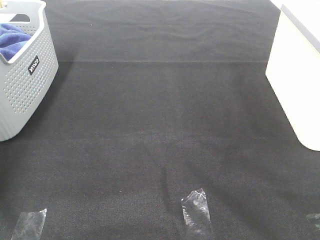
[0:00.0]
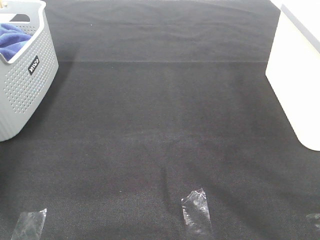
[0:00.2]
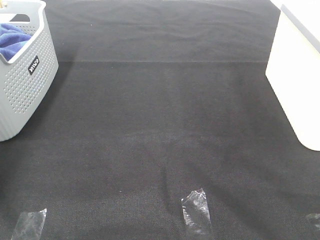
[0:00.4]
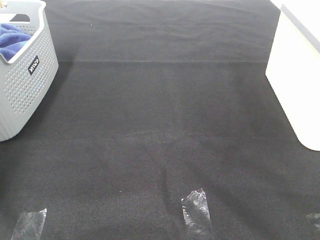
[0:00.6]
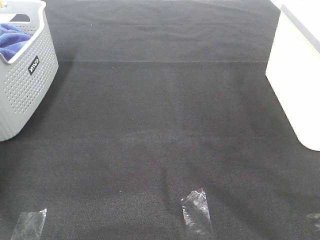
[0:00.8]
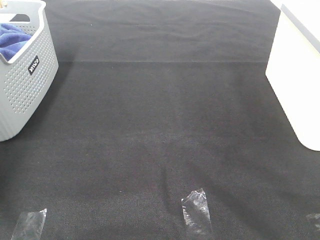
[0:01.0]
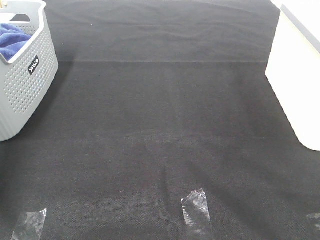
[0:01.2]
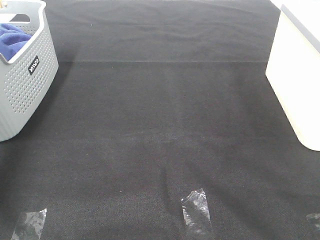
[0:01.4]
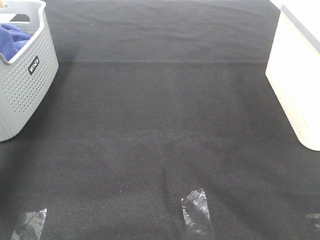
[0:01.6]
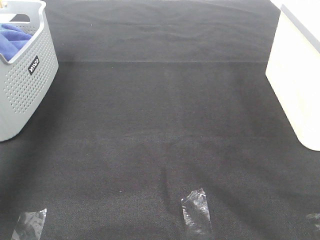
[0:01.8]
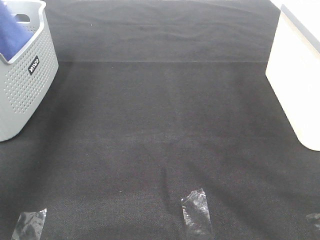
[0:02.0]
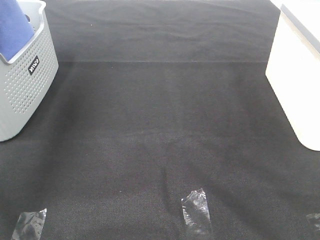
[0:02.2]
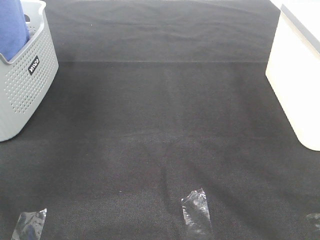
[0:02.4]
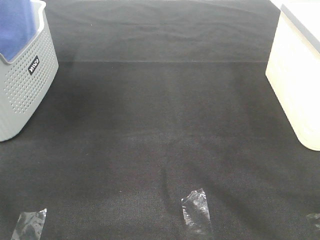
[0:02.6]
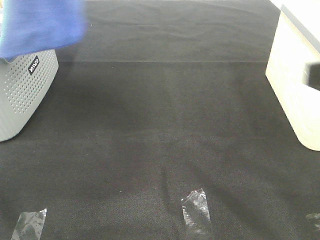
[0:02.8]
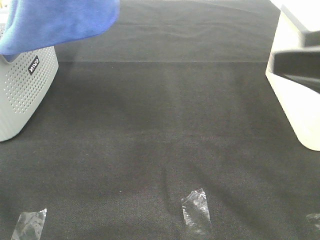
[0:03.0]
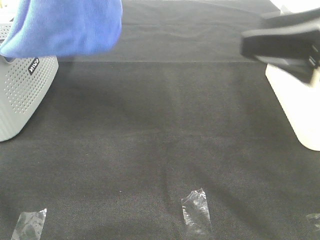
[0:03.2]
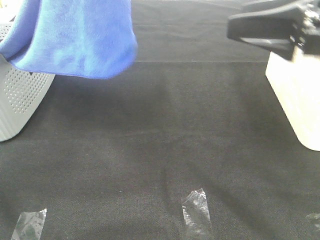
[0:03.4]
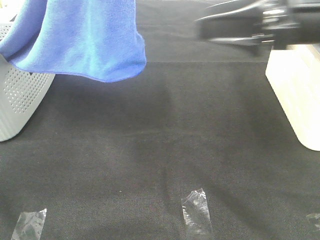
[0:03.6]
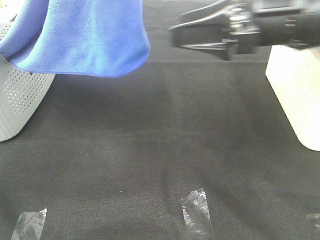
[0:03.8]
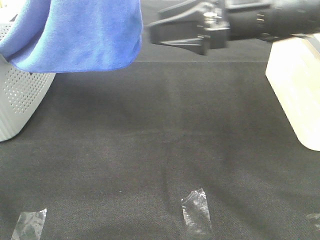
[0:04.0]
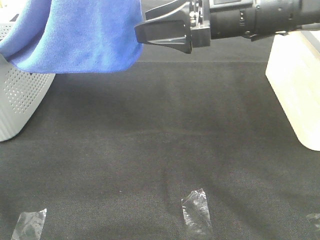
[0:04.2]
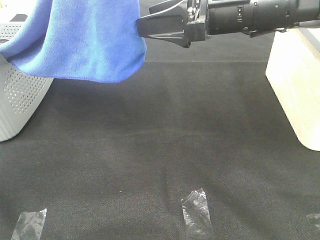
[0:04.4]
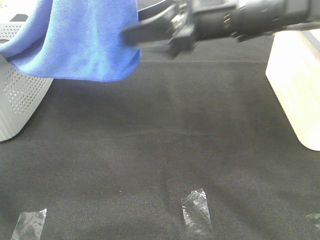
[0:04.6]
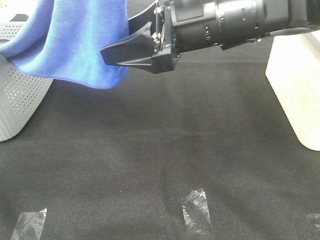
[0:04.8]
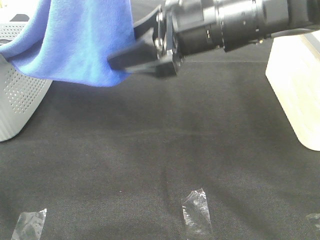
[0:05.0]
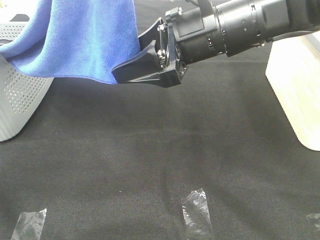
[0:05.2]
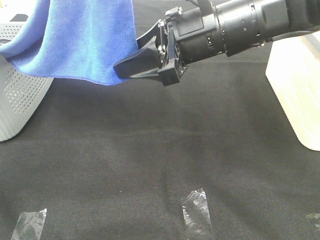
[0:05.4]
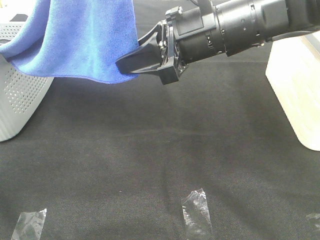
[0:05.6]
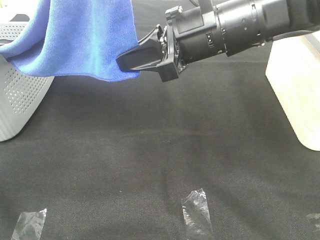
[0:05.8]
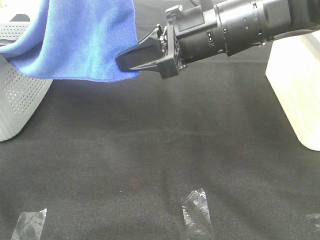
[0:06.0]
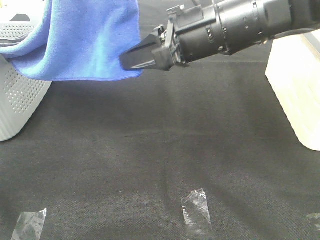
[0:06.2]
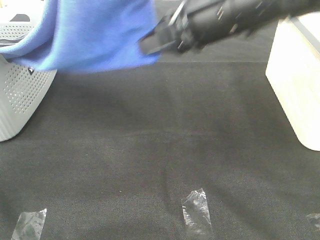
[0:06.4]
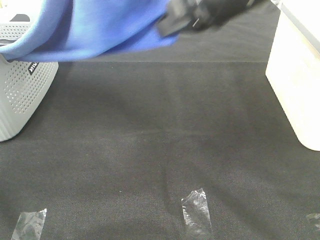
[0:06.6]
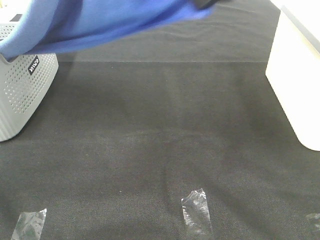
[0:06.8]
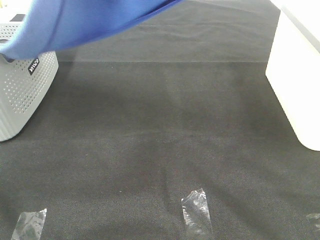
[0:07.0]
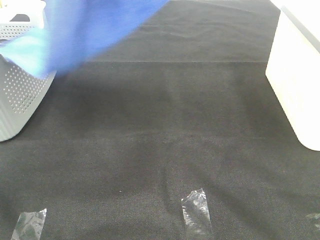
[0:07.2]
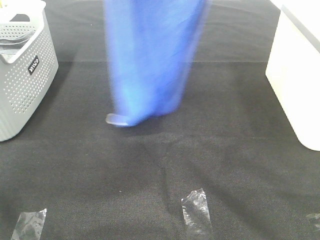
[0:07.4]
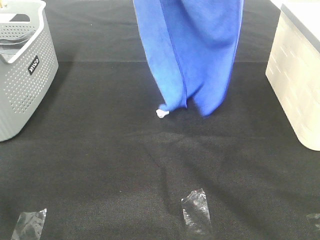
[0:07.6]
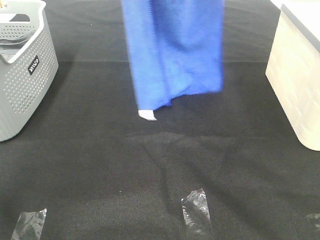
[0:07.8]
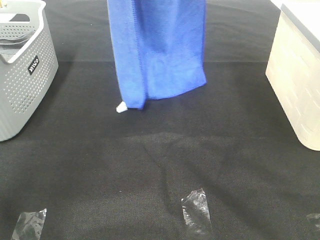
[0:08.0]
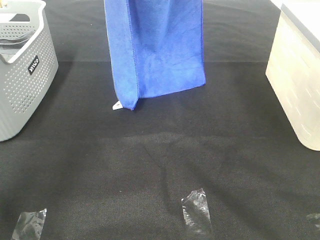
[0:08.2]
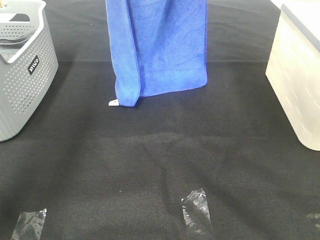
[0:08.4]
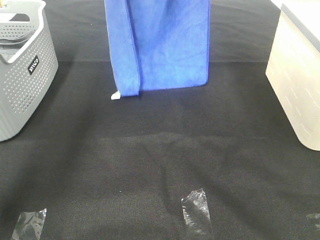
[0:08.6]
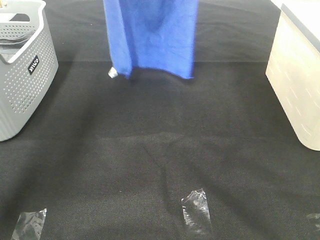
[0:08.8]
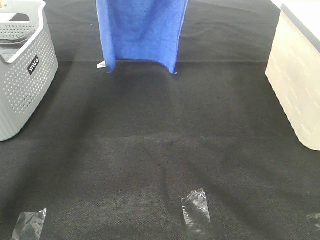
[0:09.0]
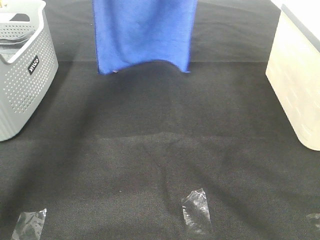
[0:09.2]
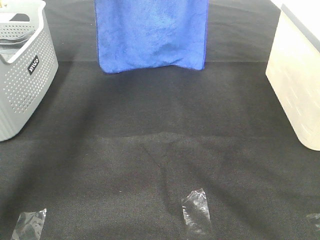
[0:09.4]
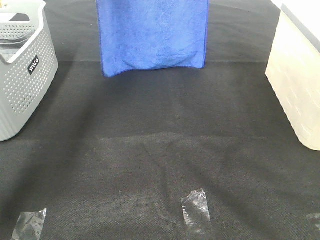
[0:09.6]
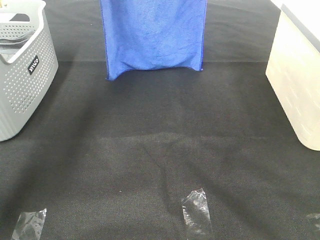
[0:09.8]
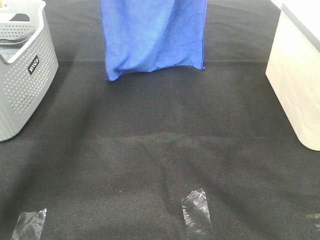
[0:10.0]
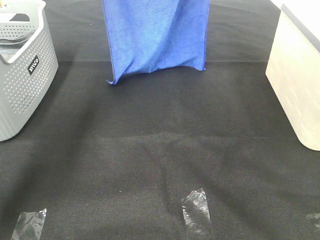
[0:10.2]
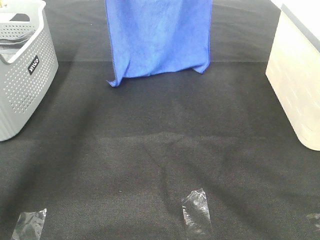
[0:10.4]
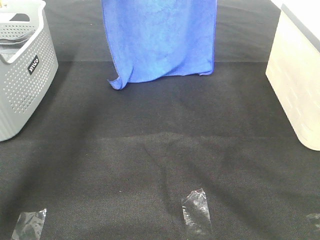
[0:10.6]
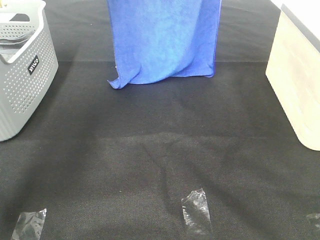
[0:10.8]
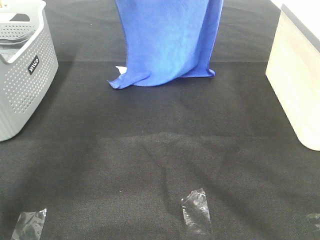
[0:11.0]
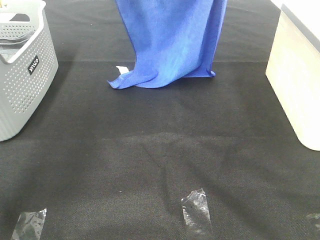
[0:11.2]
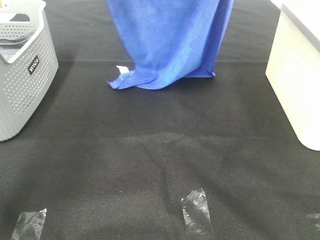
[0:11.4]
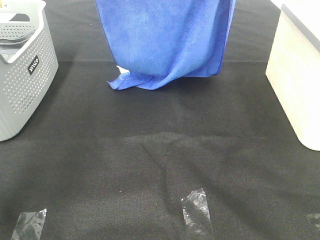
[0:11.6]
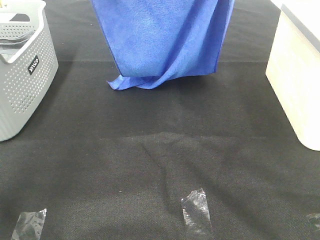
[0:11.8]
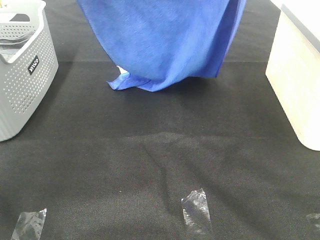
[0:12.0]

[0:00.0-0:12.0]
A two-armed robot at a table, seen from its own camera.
Task of the whole recording: Remove the towel and place it.
Step, 2.0 to 5.8 s: Right hand: grab a corner of the blue towel and straighten it.
0.0 to 1.6 s: The left gripper travels upward by about 20 cm, and closes up.
1.6 to 3.0 s: The right gripper shifts roughly 15 cm forward. Meanwhile the left gripper travels to the right, backward and upward by roughly 35 cm.
3.0 to 4.4 s: The right gripper goes some 20 cm forward and to the left.
4.4 to 6.0 s: The right gripper changes place by about 5 cm, and closes.
6.0 to 7.6 s: The left gripper moves forward, some 15 cm. The right gripper heads upward, covering roughly 25 cm.
7.6 to 9.0 s: The two grippers go about 10 cm forward.
9.0 to 10.4 s: The left gripper changes place by some 5 cm.
10.4 to 12.0 s: Both grippers travel together backward, about 20 cm.

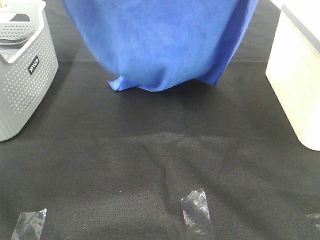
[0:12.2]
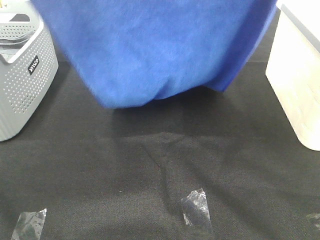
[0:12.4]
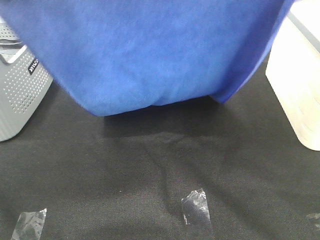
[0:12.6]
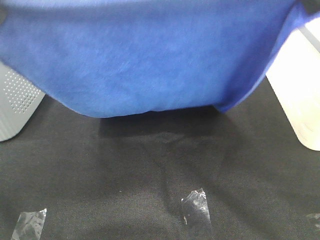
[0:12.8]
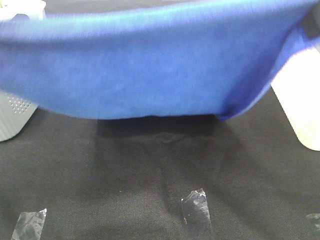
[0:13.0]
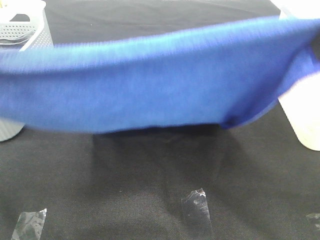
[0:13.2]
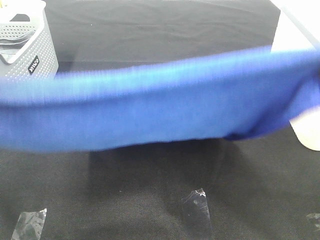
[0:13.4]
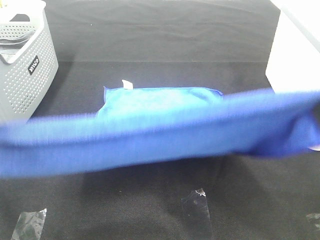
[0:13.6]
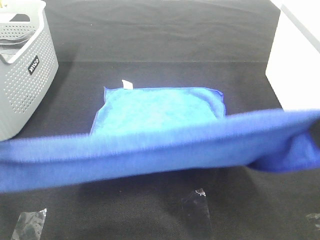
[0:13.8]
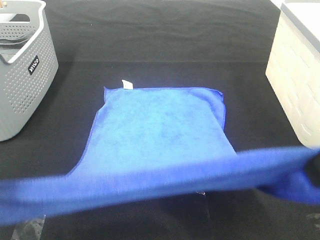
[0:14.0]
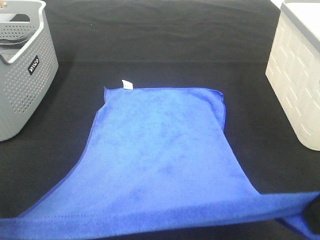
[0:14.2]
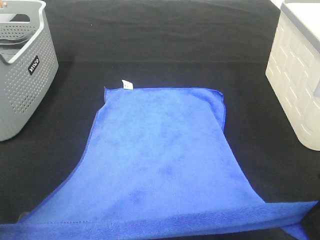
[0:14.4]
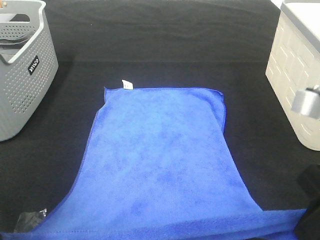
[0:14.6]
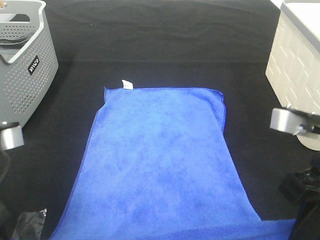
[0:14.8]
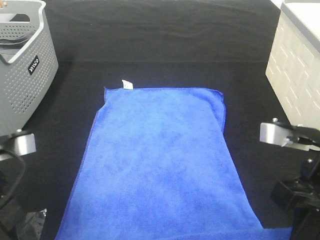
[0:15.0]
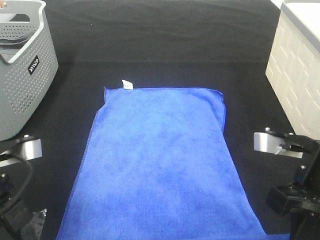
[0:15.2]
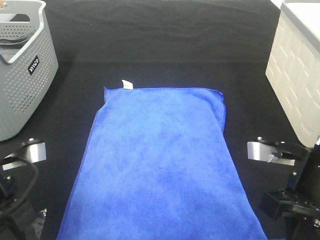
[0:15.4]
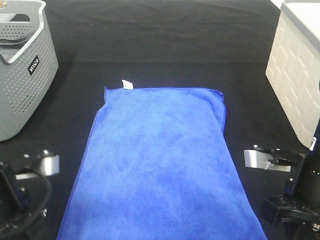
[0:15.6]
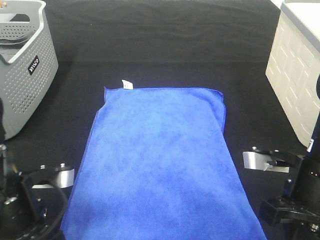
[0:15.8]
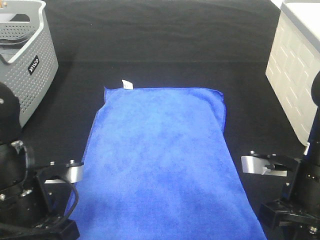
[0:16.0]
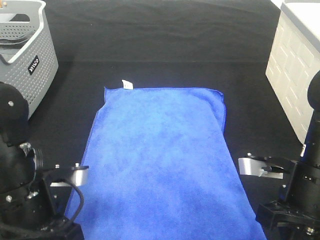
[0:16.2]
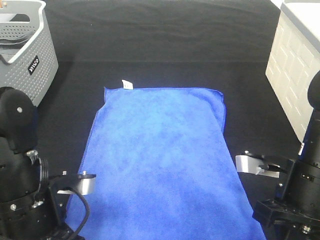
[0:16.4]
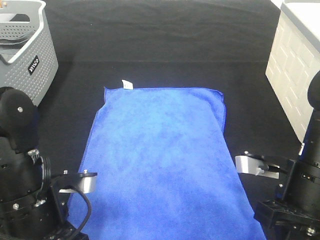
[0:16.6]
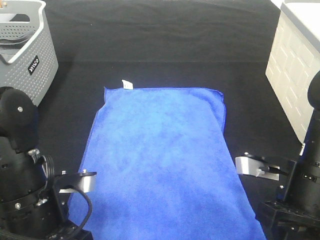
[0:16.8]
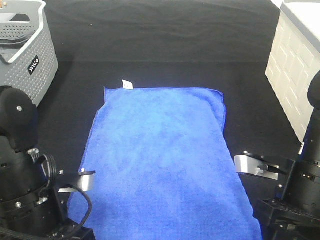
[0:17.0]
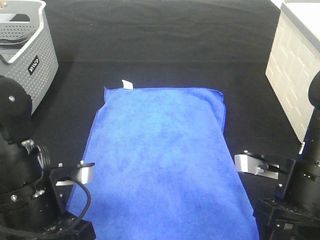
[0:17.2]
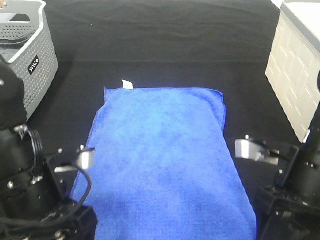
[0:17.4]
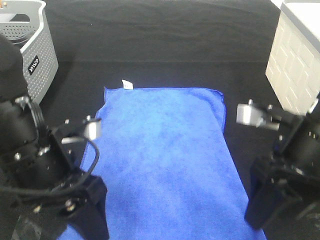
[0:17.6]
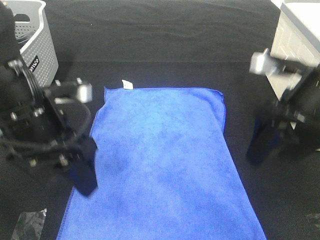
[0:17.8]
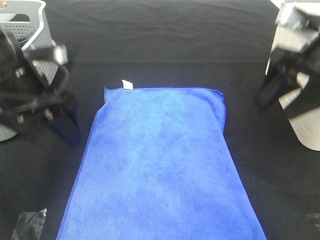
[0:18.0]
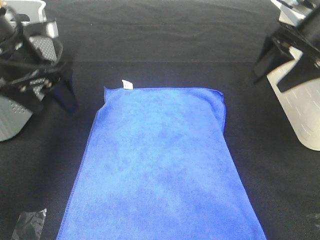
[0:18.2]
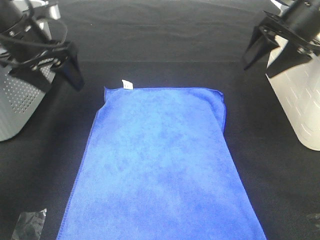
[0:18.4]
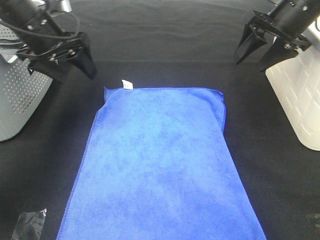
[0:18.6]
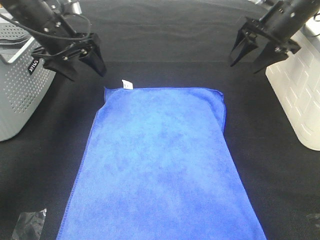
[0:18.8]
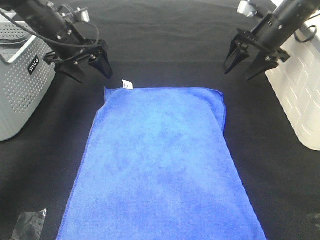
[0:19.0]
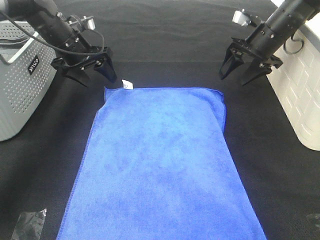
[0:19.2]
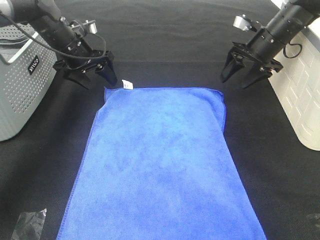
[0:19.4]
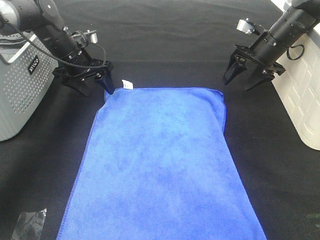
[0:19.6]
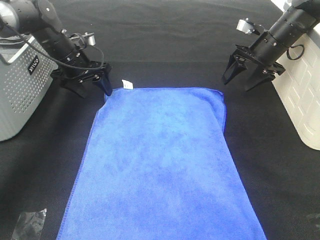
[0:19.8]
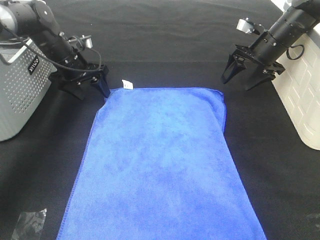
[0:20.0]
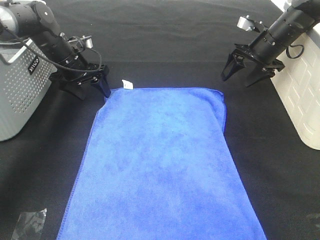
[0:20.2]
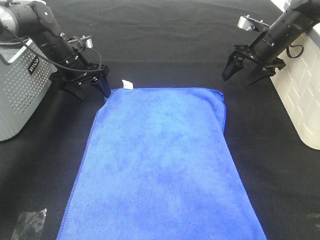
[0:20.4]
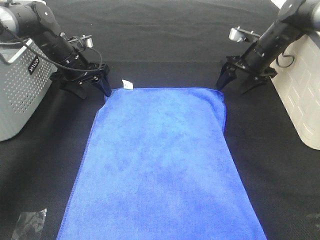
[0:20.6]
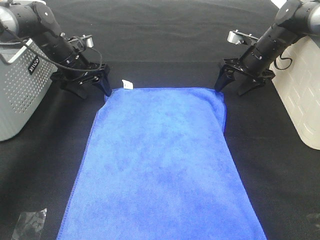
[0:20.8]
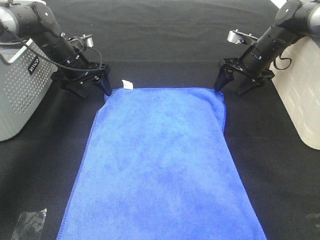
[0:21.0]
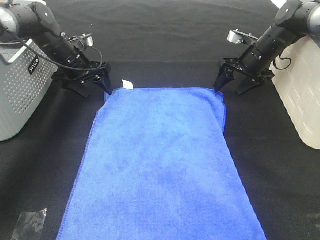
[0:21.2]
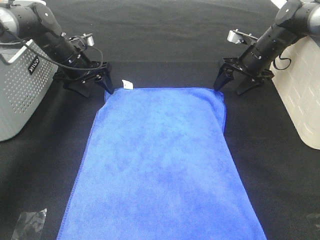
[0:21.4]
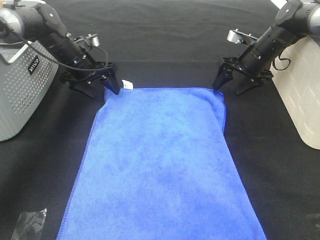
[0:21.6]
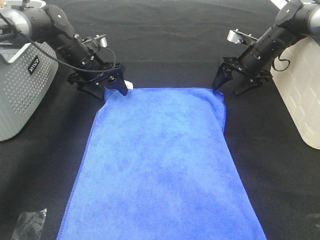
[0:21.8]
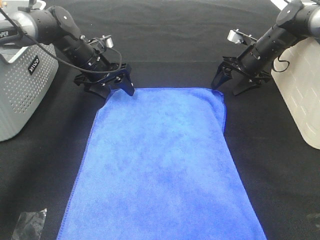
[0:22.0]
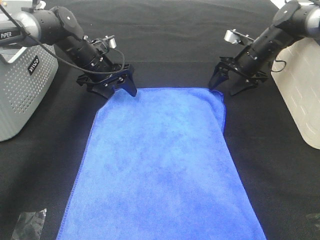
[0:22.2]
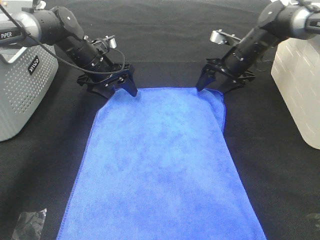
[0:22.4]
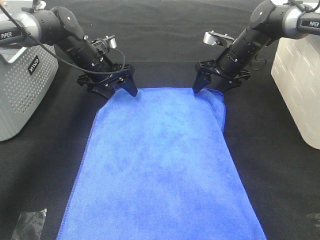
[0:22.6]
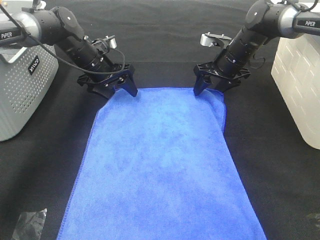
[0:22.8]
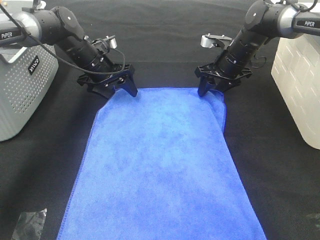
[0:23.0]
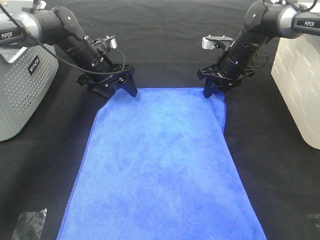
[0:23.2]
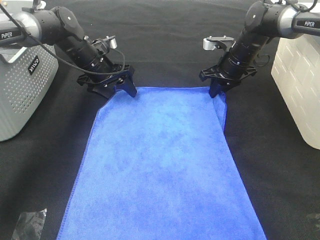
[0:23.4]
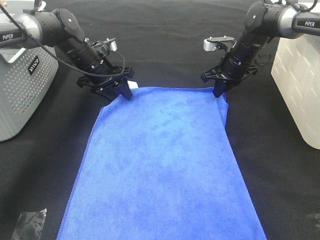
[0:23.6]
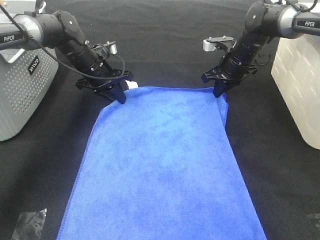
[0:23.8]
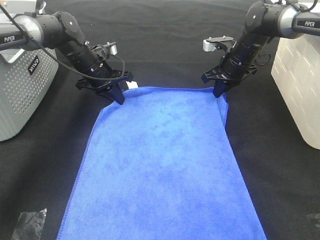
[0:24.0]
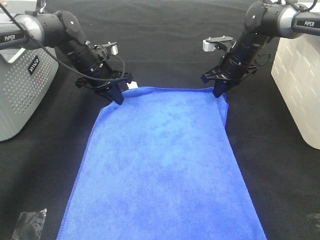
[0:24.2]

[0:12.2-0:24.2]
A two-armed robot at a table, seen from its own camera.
Task of the whole recording: Remove the towel and place it.
Step, 12.8 to 21.8 s: Left hand:adjust the blue towel.
Step, 12.8 to 21.8 s: Right hand:adjust the blue towel.
12.2 to 13.8 s: Both grippers travel together backward and downward, approximately 20 cm.
13.8 to 15.2 s: The grippers both shift downward by about 15 cm.
15.2 to 16.6 s: The left gripper moves downward and to the right, approximately 10 cm.
16.6 to 18.2 s: The grippers both shift forward and upward by about 20 cm. The right gripper opens up. Meanwhile the left gripper opens.
18.2 to 19.8 s: Both grippers travel together forward and downward, about 20 cm.
19.8 to 21.2 s: The grippers stay close to where they were, moving slightly.
21.2 to 22.6 s: The left gripper heads to the right, covering some 5 cm; the right gripper heads to the left, covering some 5 cm.
22.6 to 24.2 s: The right gripper closes its fingers; the left gripper closes its fingers.
